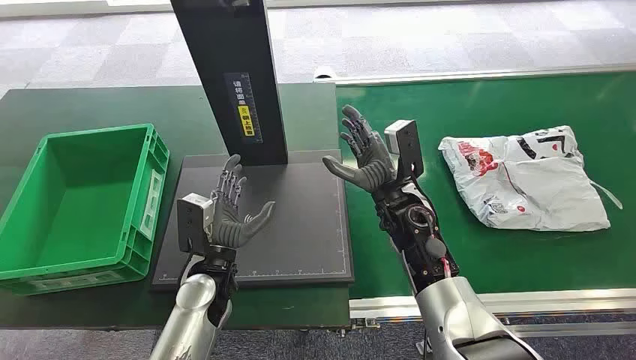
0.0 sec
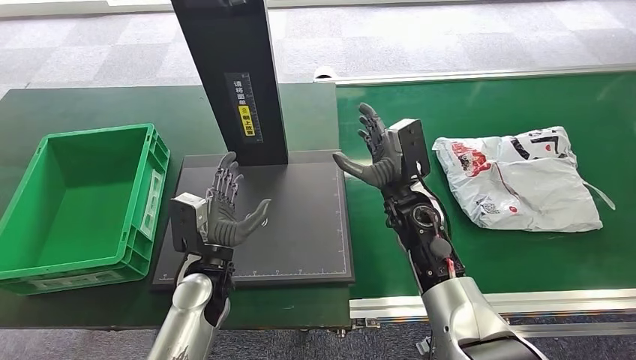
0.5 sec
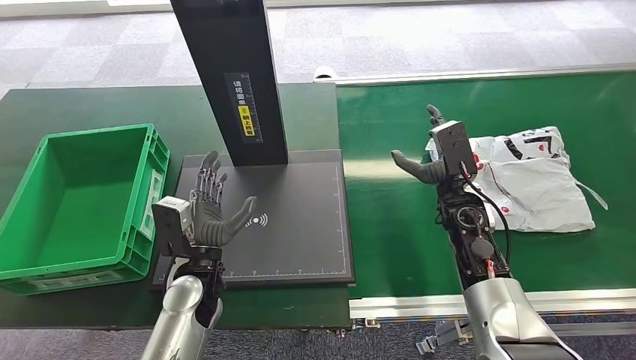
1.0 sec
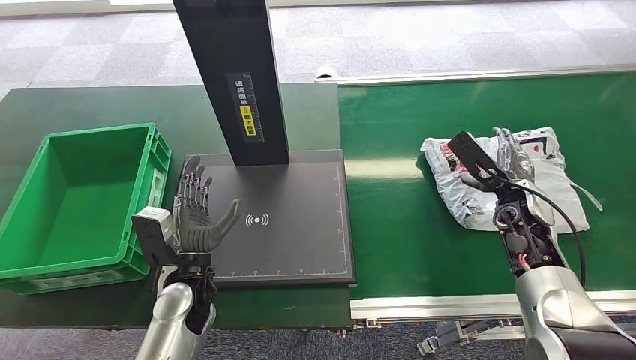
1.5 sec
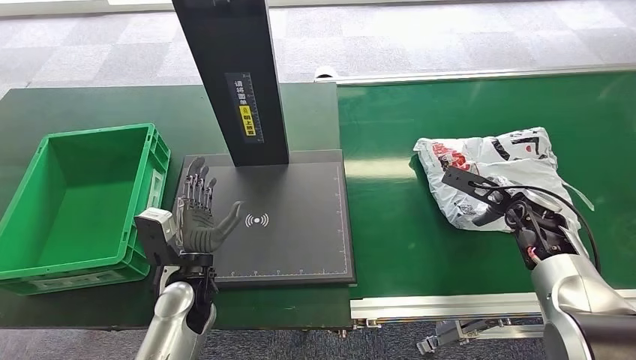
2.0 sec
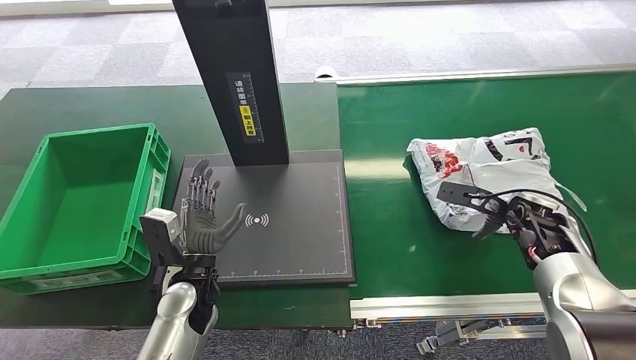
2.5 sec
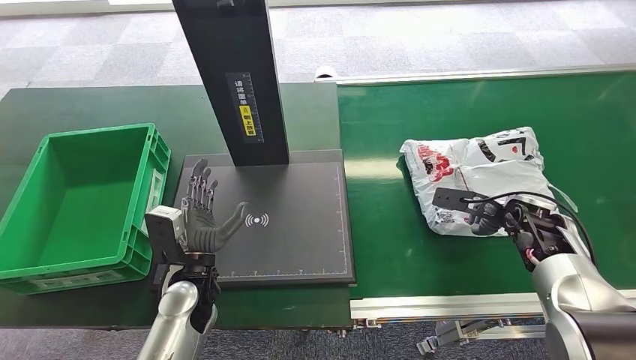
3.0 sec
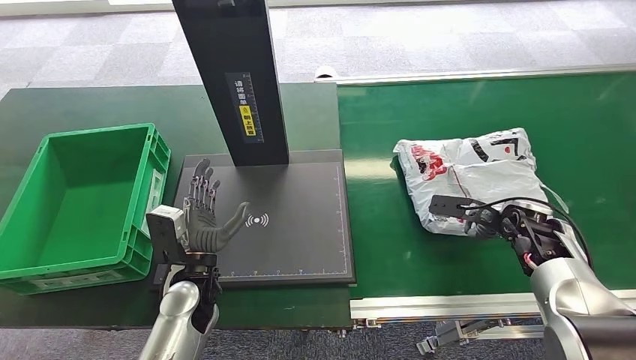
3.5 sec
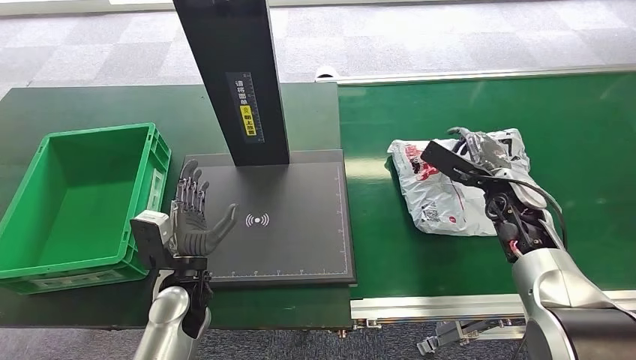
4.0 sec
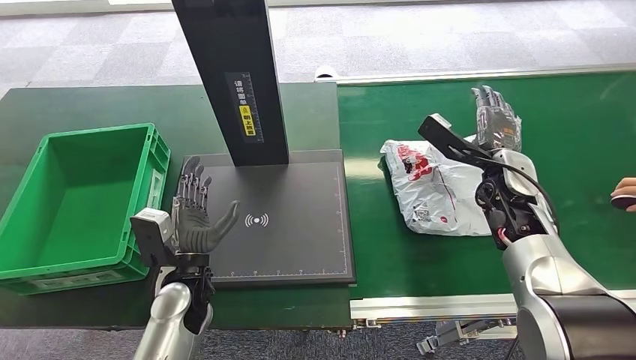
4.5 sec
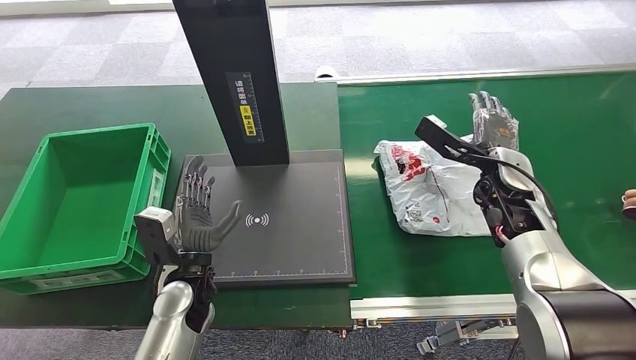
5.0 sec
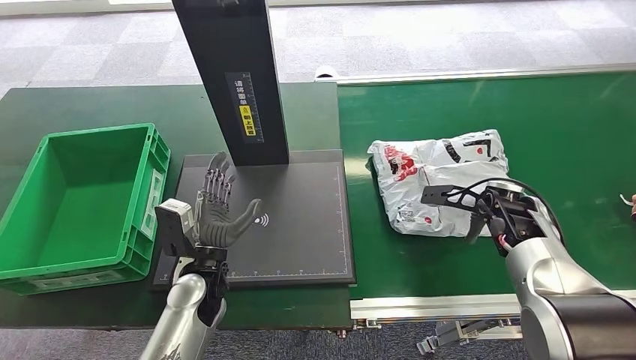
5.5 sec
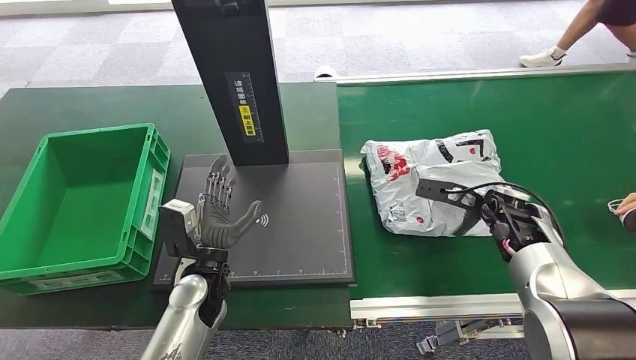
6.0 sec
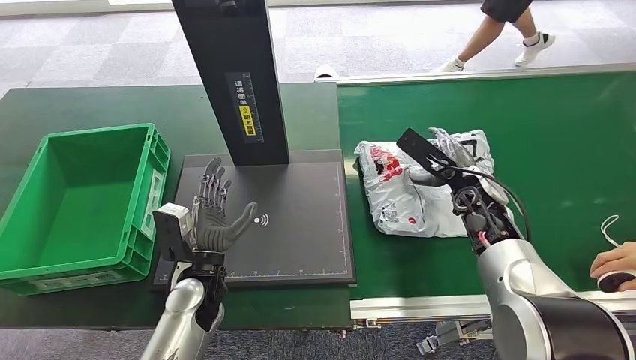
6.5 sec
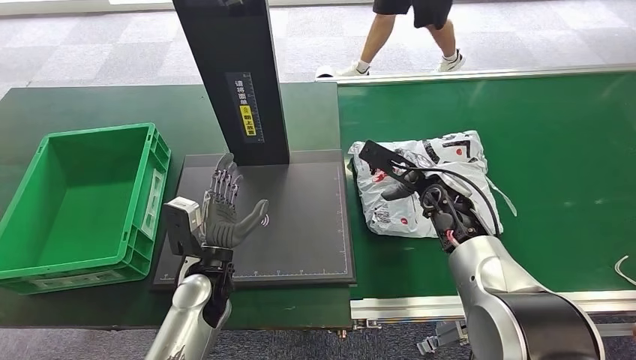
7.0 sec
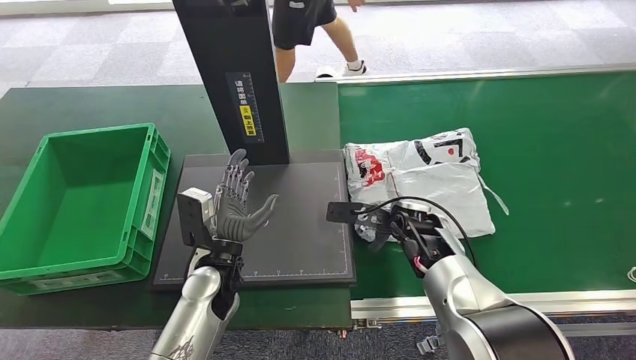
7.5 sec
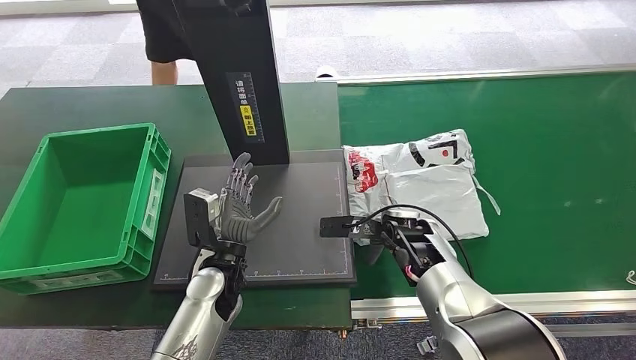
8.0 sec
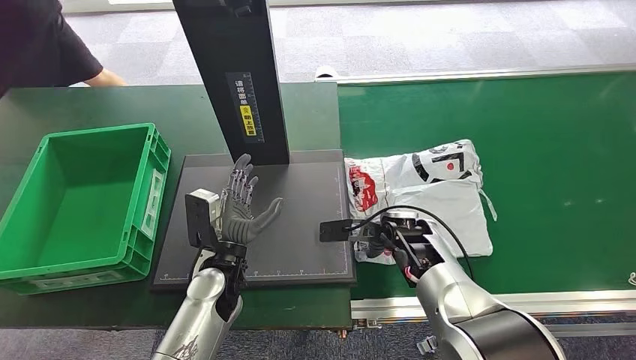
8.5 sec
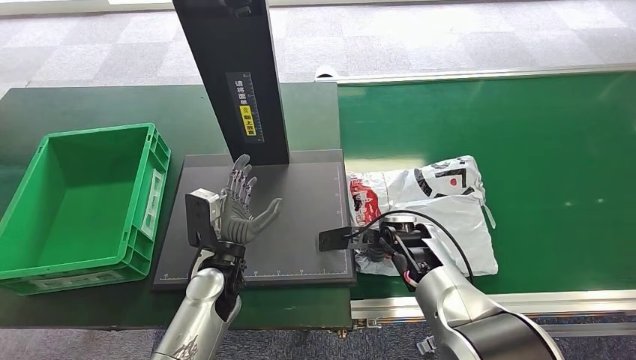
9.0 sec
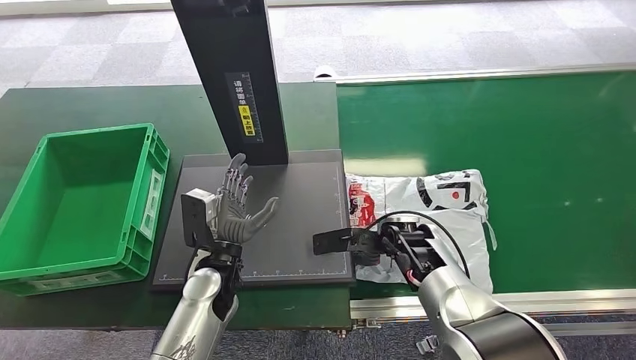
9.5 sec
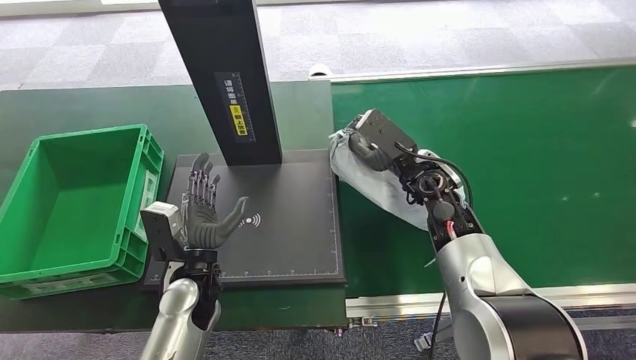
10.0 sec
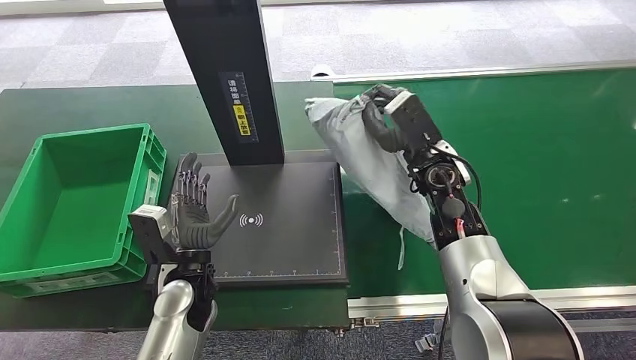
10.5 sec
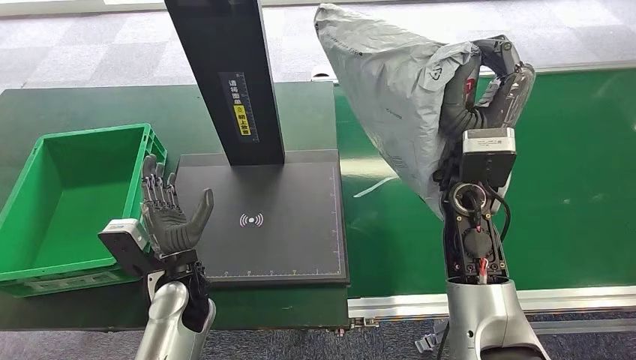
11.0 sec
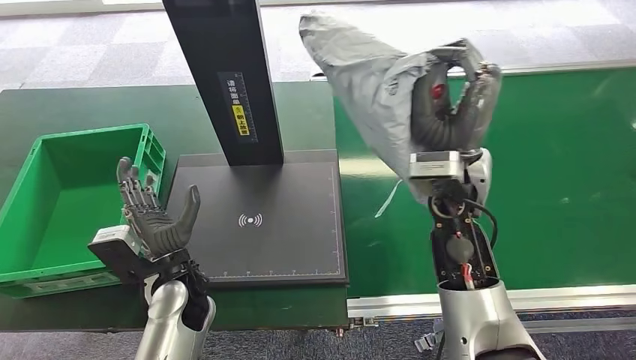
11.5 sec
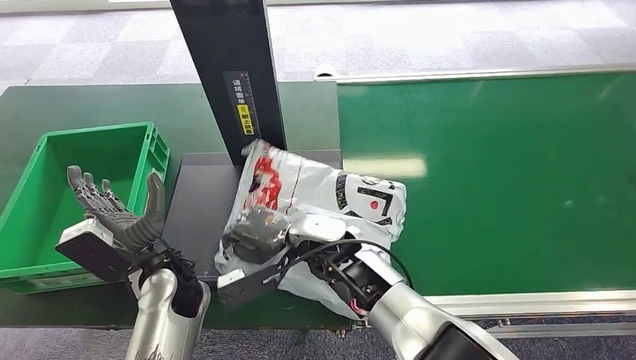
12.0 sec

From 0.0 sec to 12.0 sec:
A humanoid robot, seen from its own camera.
Step, from 0.0 sec to 10.5 sec: Pick up the package from the conveyor belt.

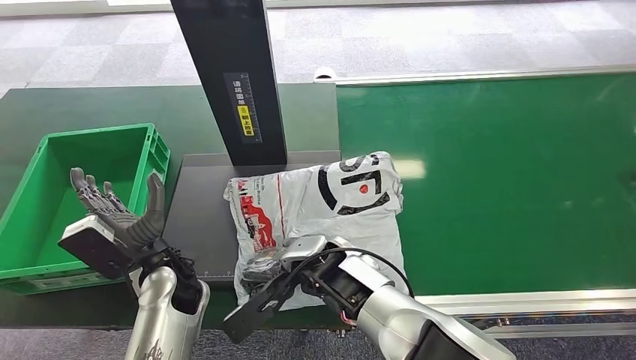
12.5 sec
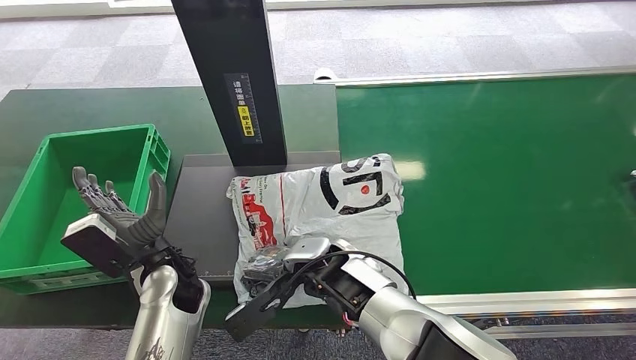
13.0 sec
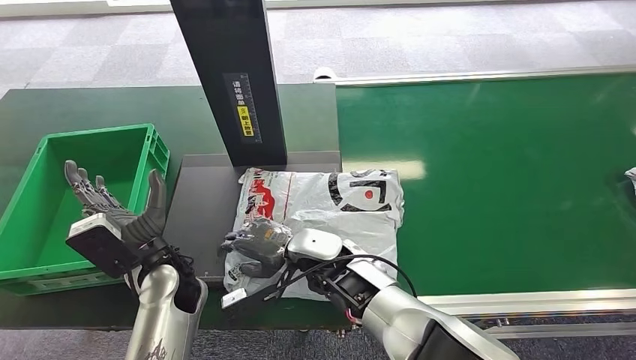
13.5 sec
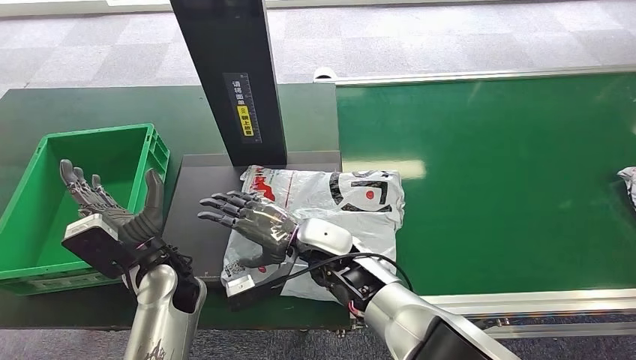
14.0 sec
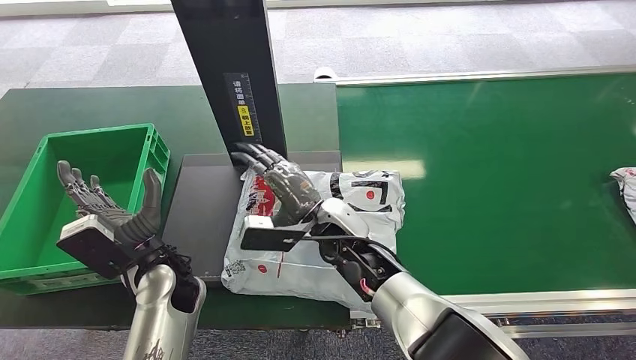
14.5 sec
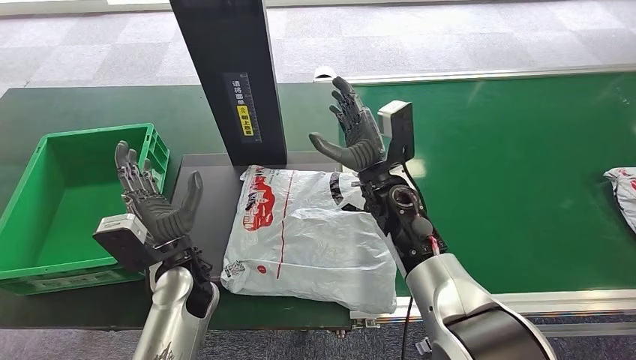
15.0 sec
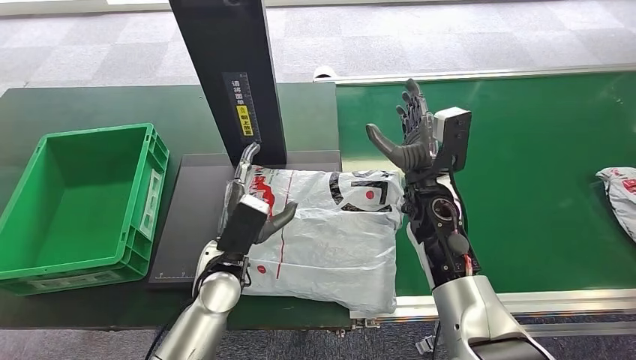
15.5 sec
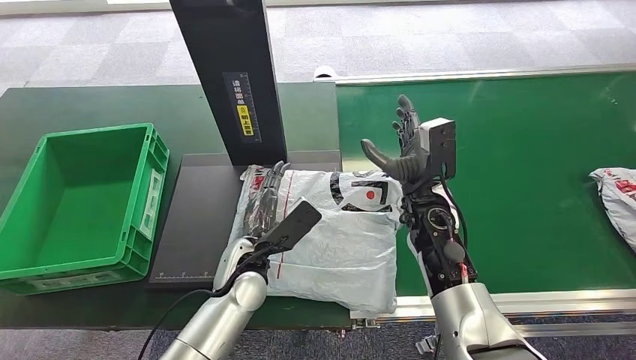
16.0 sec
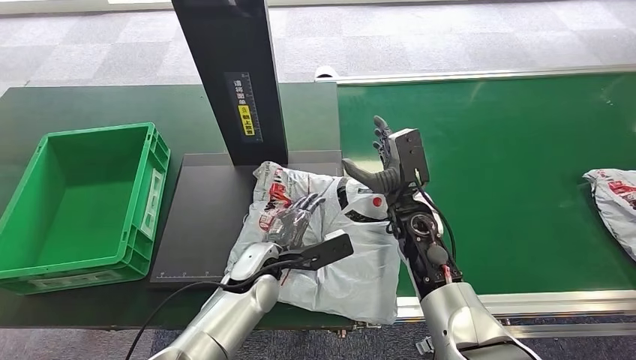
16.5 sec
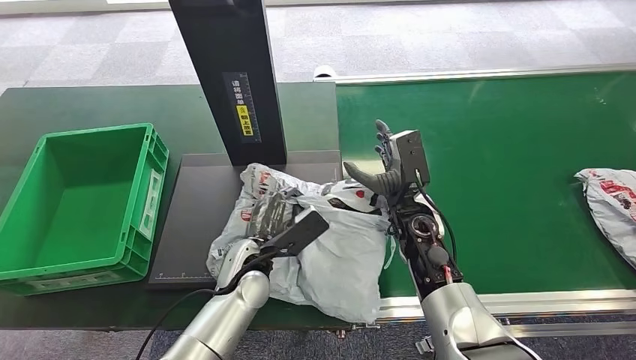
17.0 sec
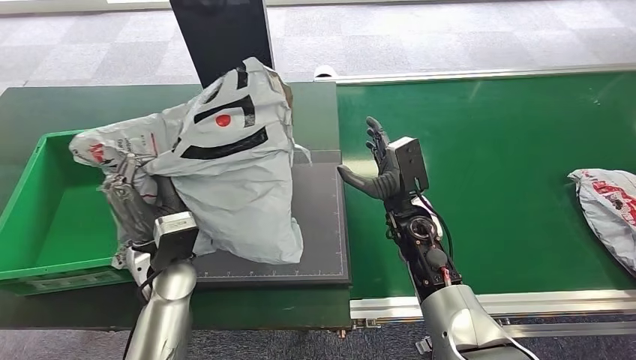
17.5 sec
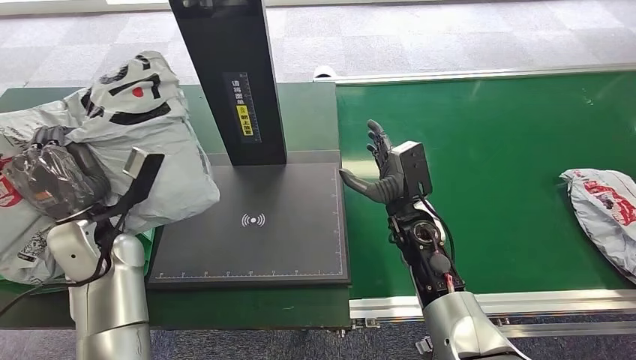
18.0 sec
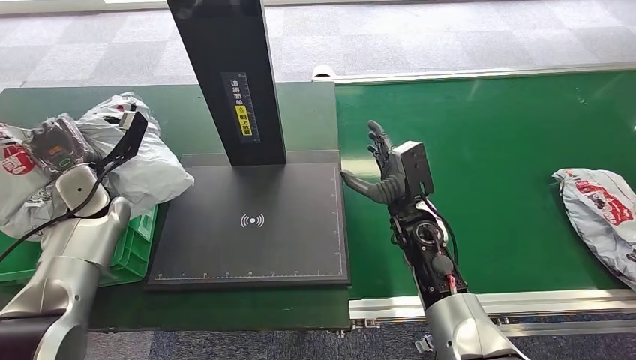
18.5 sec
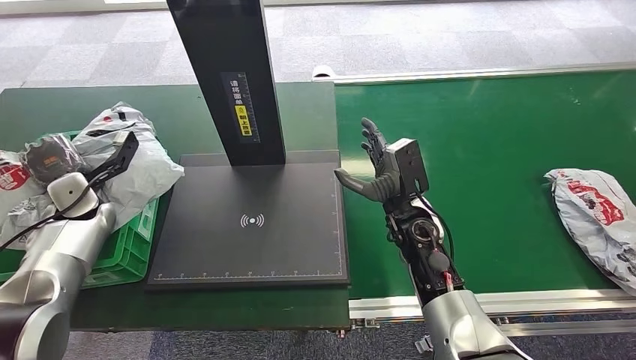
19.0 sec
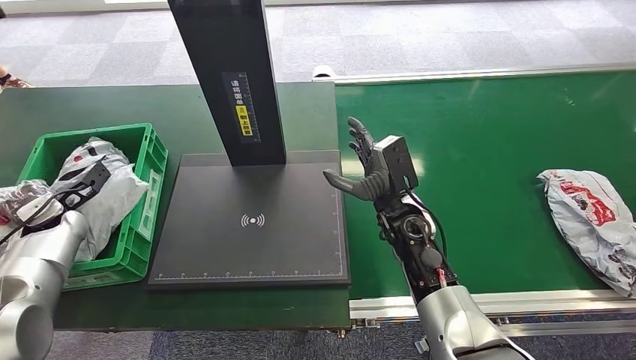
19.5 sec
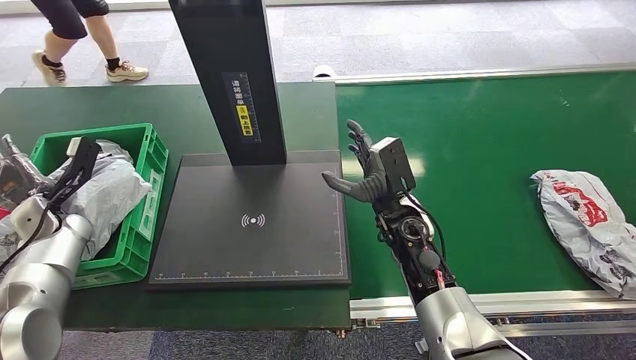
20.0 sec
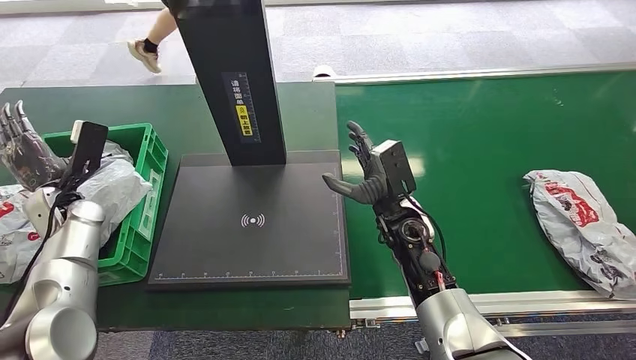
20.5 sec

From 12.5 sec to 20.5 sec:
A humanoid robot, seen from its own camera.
Step, from 12.5 sec to 14.5 sec: Place the package onto the inbound machine.
Step, from 15.0 sec to 17.5 sec: Pick up the package from the inbound machine.
Step, from 18.0 sec to 20.5 sec: Place the package into the parcel locker.
